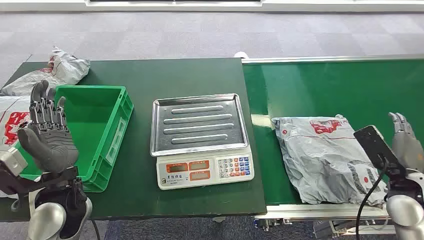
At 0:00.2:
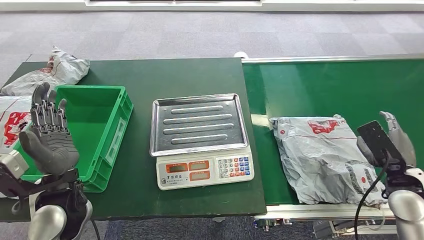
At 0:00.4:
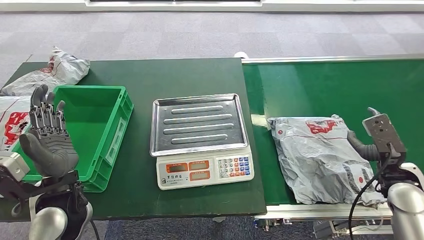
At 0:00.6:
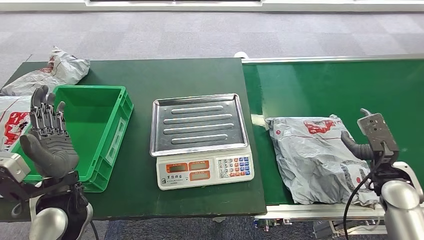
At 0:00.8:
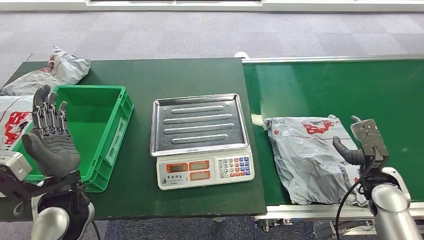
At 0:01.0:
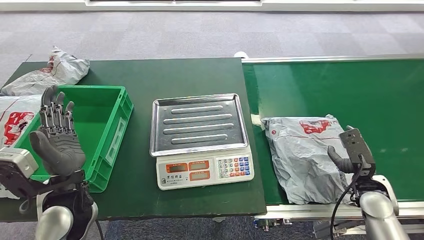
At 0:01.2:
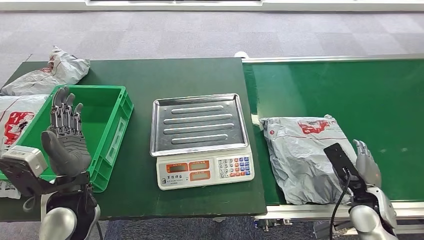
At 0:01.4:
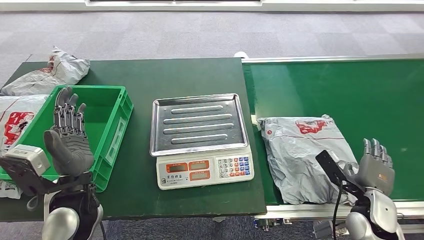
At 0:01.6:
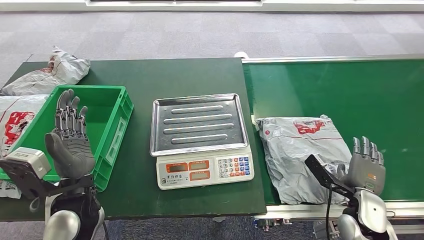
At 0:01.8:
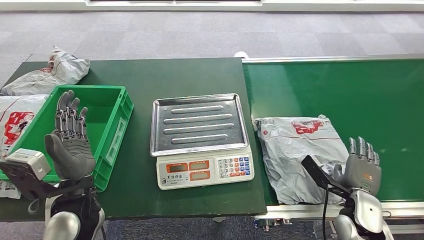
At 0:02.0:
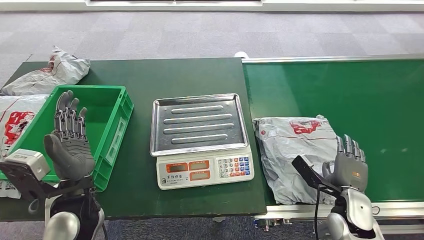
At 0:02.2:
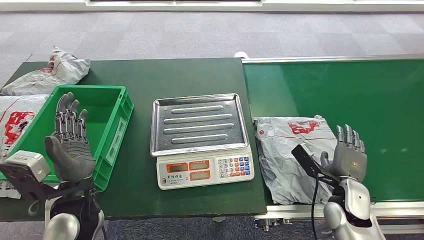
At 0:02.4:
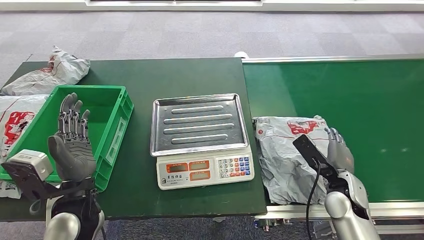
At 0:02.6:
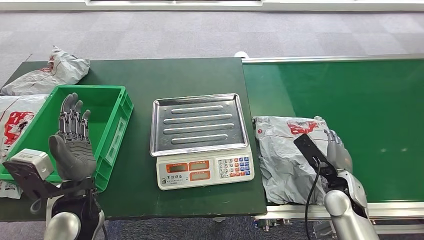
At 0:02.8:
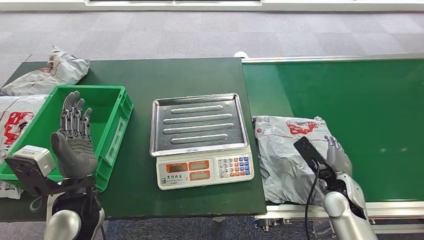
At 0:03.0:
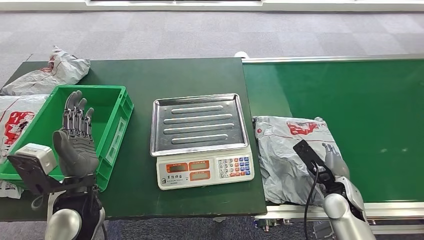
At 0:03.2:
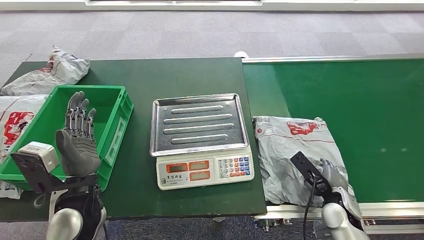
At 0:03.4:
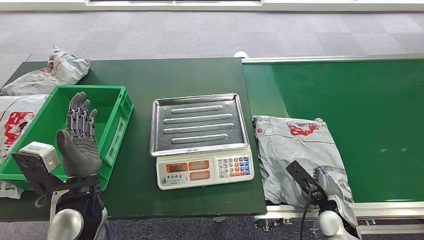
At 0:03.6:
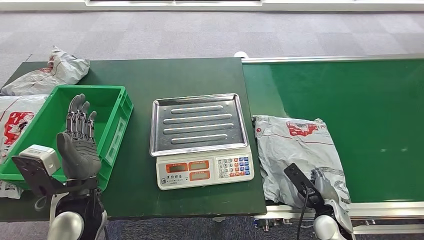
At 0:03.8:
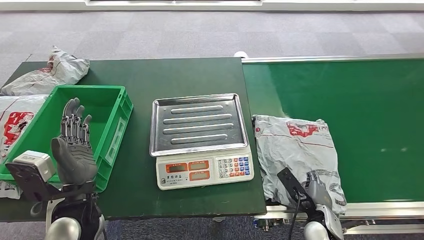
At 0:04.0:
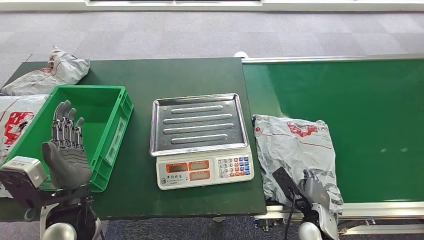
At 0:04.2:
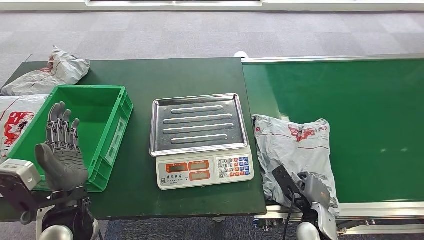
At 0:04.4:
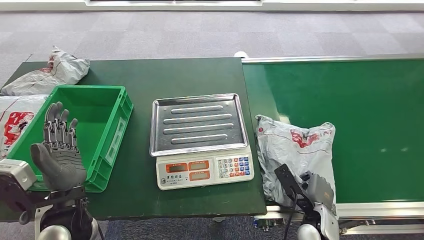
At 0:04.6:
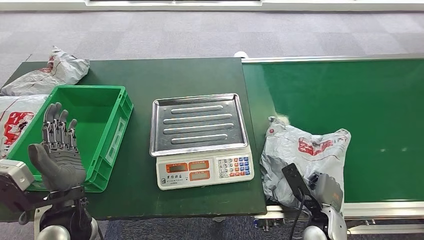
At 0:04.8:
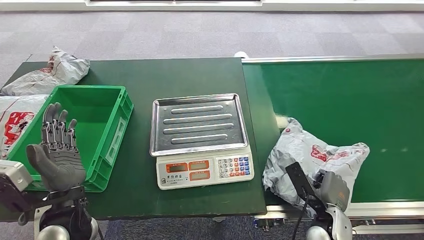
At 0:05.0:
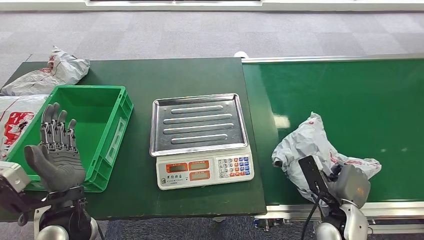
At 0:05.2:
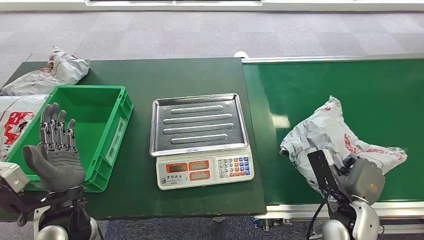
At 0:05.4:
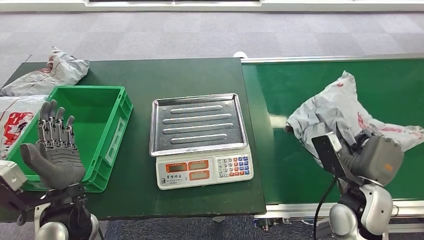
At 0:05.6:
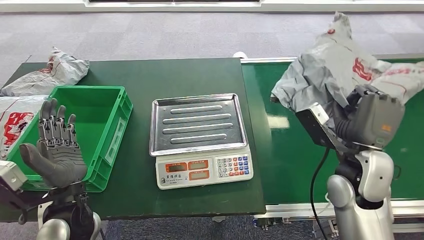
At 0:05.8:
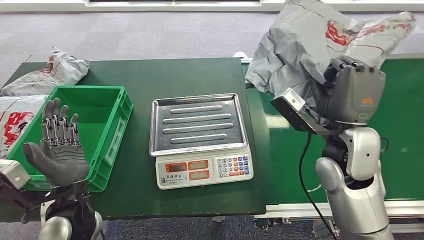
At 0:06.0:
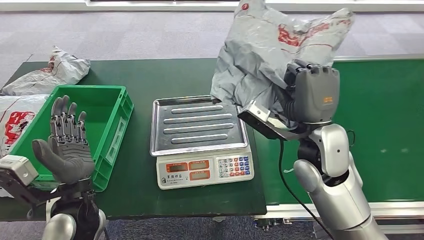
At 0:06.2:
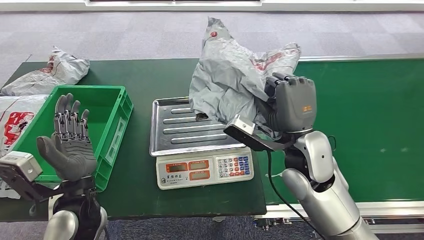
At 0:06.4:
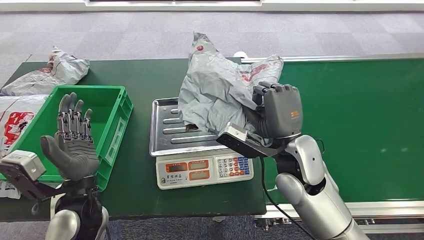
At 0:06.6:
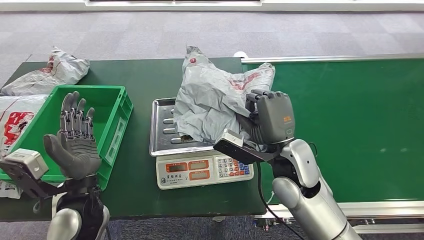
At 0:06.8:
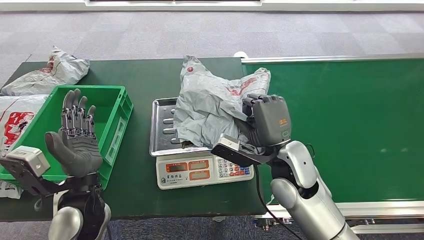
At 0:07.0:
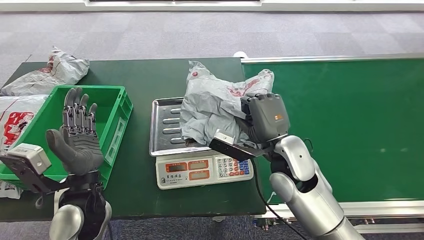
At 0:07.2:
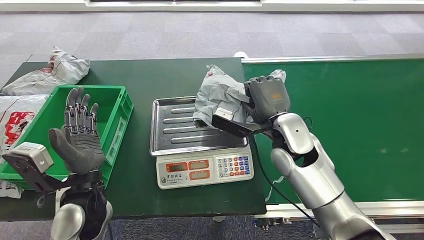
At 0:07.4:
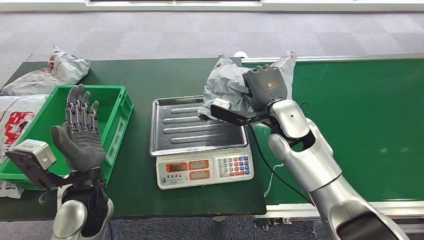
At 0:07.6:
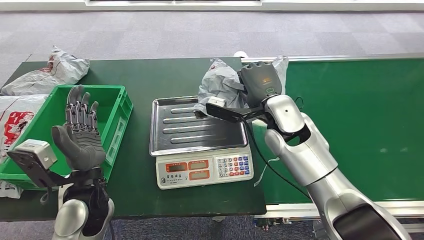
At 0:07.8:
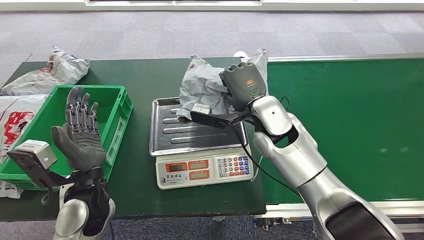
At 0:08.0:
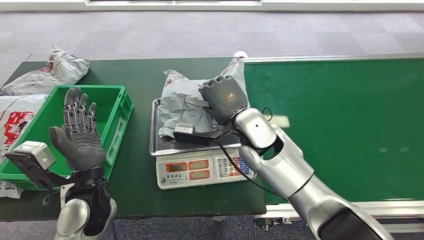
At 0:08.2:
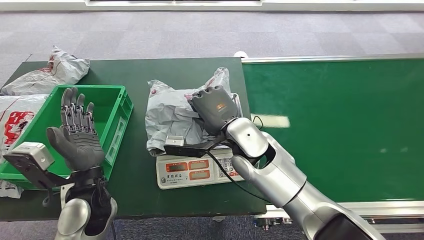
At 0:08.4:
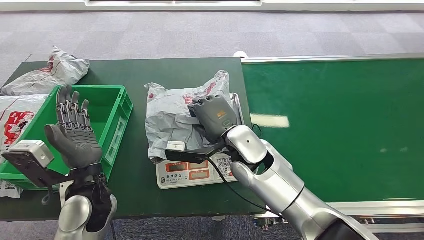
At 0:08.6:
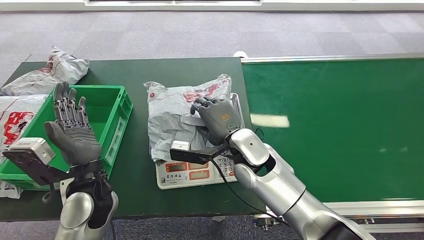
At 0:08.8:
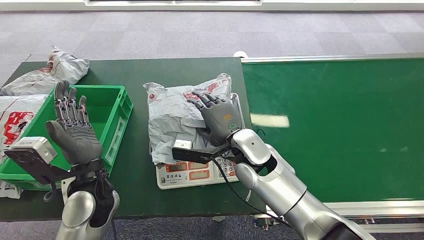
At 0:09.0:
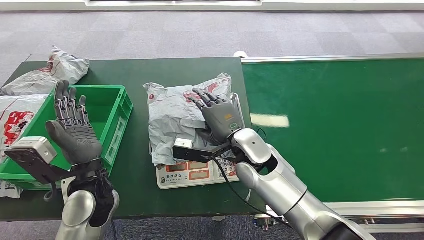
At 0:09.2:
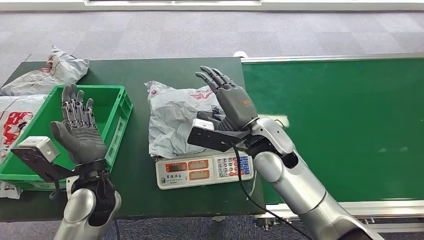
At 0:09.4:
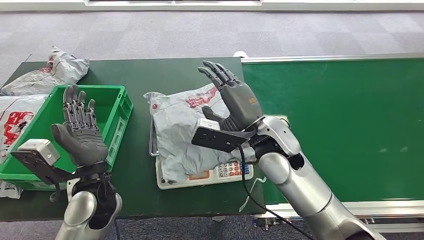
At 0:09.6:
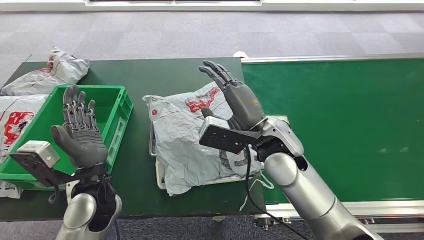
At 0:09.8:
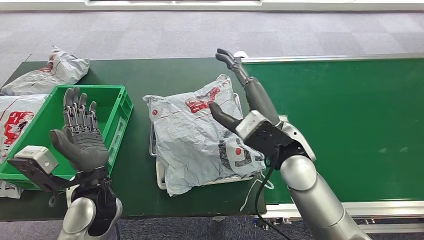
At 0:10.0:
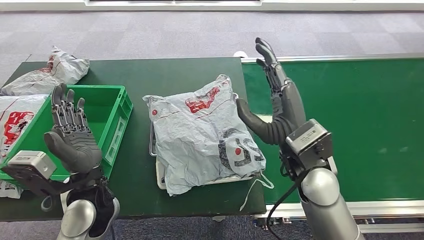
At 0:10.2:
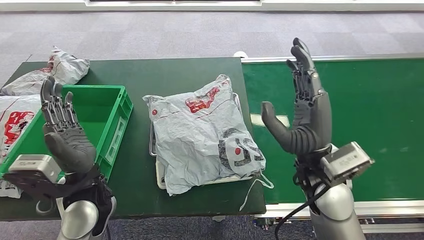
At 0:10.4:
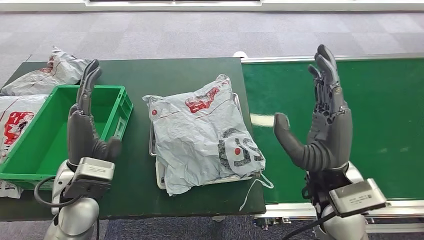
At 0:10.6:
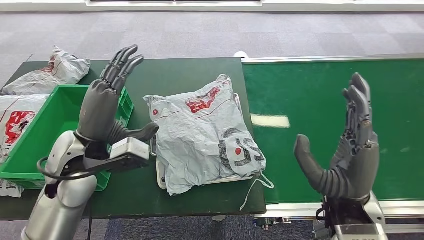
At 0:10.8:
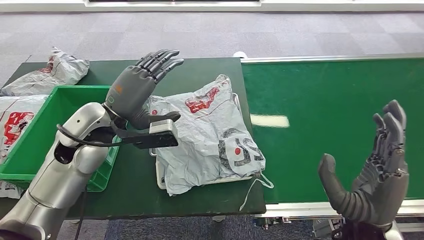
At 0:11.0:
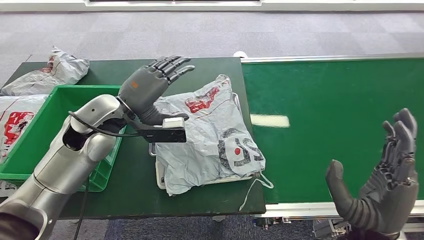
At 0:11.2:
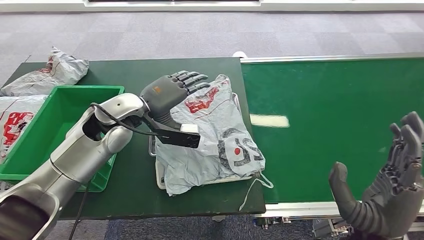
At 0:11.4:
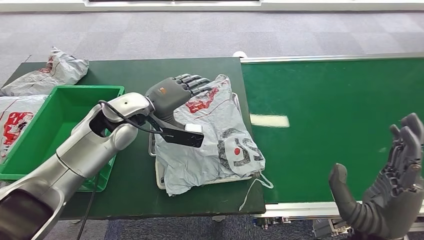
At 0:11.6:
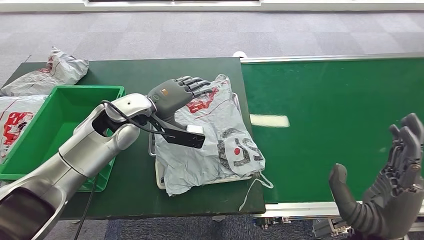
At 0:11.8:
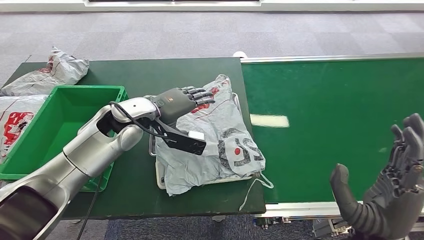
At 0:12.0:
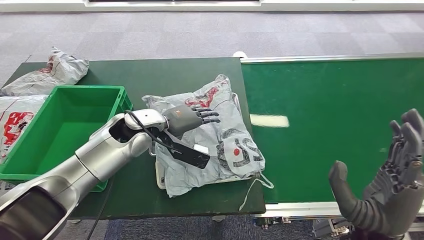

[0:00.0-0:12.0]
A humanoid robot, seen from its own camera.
Task of the whole recording: Weigh the package on the weighing device and place it in the left basket.
Step, 0:00.0 to 0:05.4: Pick up the package from the conveyor belt.
Step, 0:05.8 to 0:10.0: Place the package onto the inbound machine.
0:01.6 to 0:03.0: The right hand changes place by approximately 5 cm.
0:03.0 to 0:04.4: The right hand goes some 10 cm to the left and backward.

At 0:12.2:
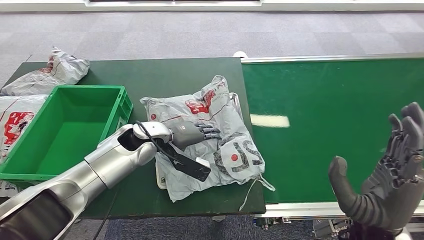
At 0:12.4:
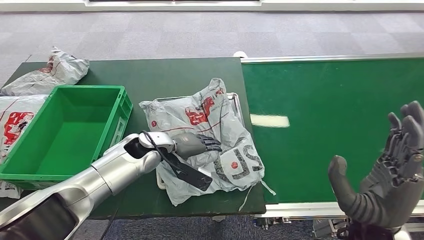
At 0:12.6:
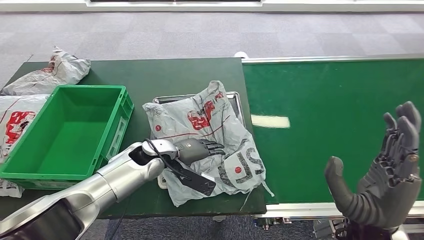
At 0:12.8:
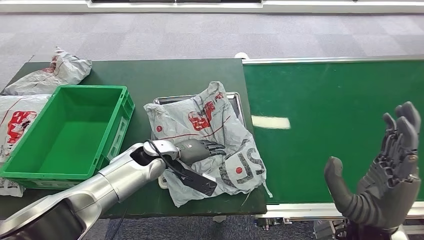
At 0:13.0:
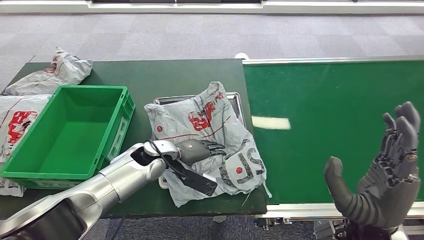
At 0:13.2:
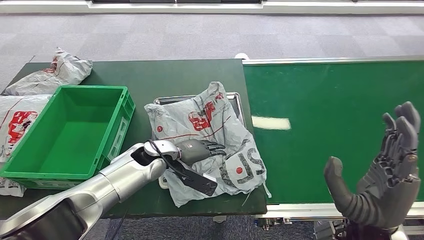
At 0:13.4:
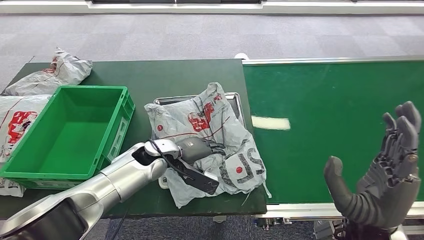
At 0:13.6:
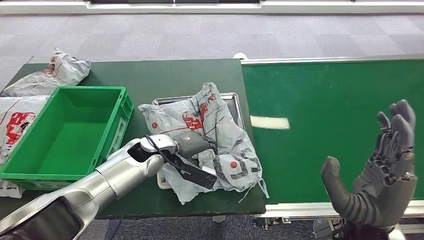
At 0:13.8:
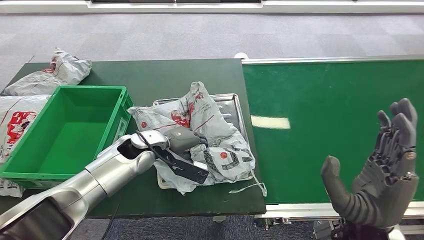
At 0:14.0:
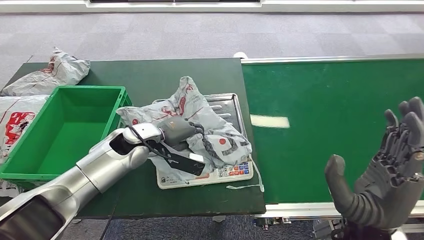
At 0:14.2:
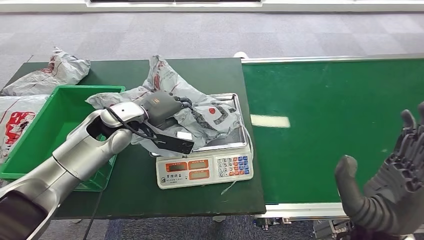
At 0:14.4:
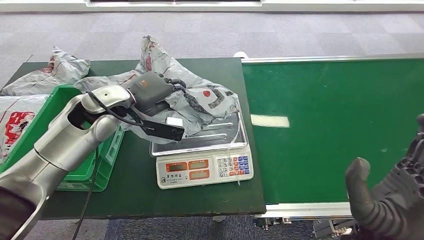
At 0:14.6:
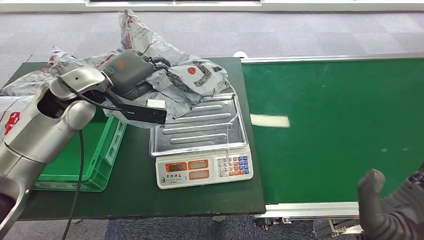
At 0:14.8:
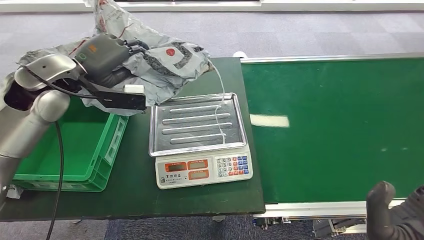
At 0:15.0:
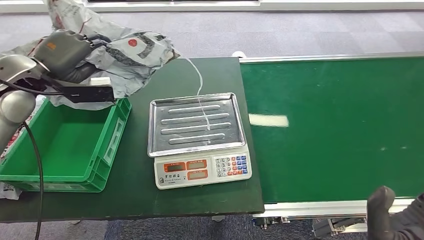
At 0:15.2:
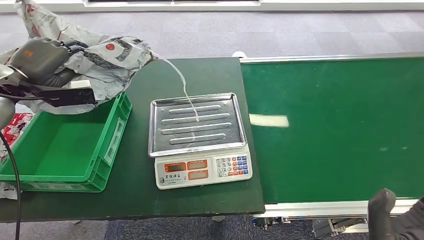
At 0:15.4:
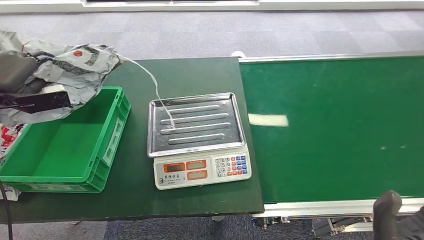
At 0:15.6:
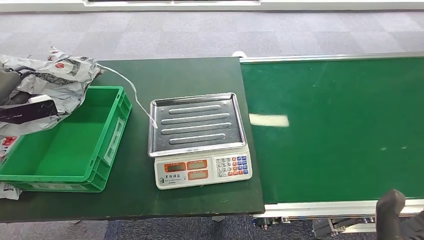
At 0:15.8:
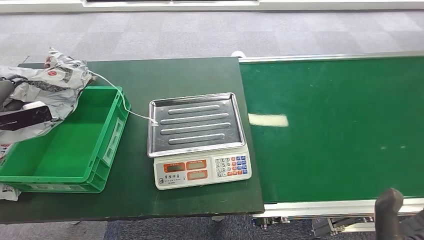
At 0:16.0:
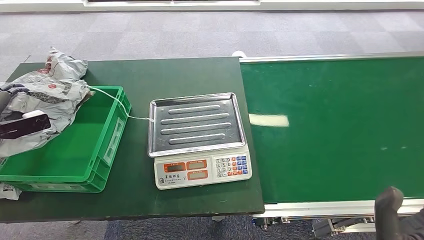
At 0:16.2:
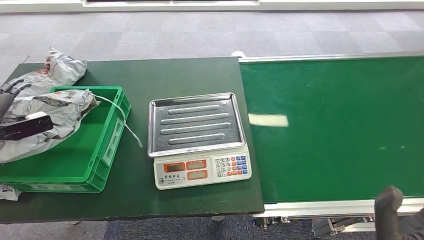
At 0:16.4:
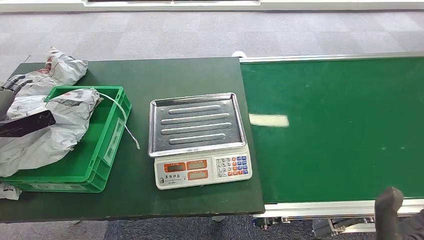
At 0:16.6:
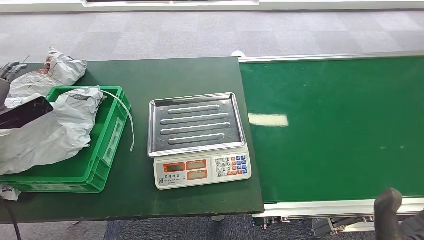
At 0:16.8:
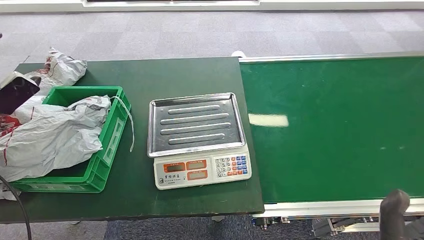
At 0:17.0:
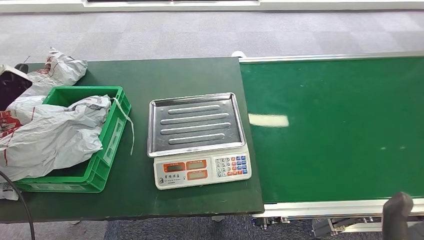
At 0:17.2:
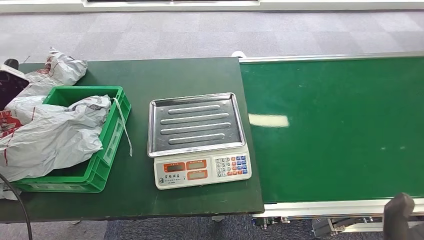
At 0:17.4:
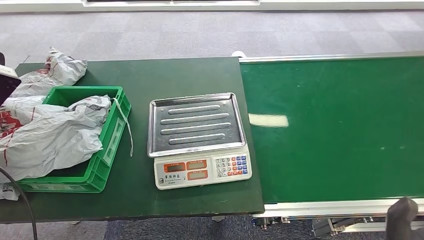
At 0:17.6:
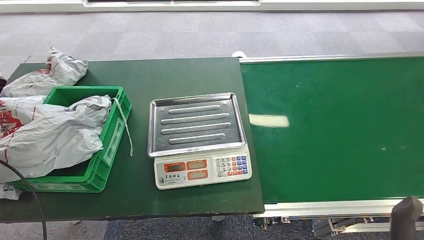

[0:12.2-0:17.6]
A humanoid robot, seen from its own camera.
Task of the whole recording: Weigh the package on the weighing device and place it in the left basket.
Step, 0:12.2 to 0:14.4: Pick up the package from the inbound machine.
Step, 0:14.8 to 0:17.6: Place the package into the parcel locker.
0:15.0 to 0:16.2: The left hand heads to the left, downward and backward, covering approximately 25 cm.
0:16.2 to 0:17.6: The left hand is displaced to the right and upward by approximately 15 cm.
